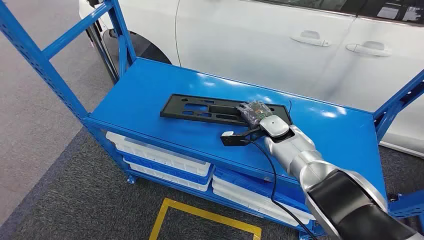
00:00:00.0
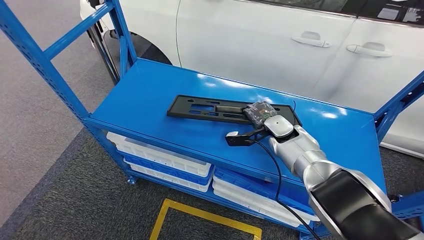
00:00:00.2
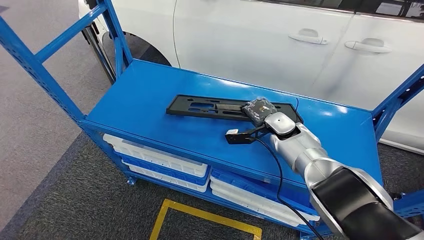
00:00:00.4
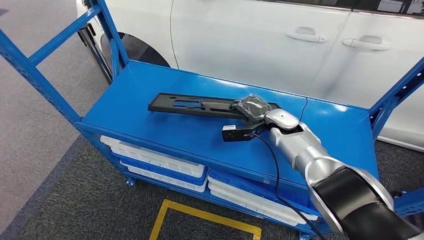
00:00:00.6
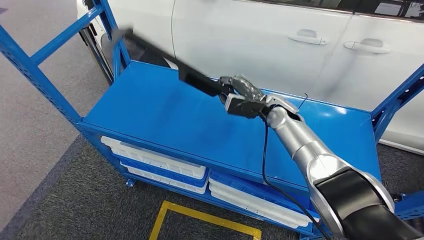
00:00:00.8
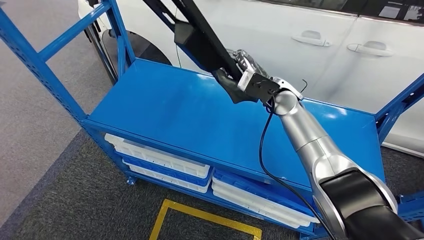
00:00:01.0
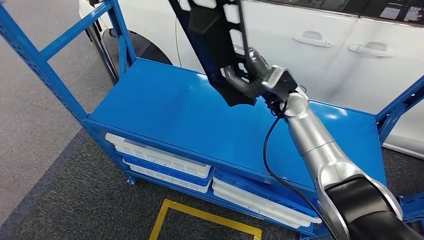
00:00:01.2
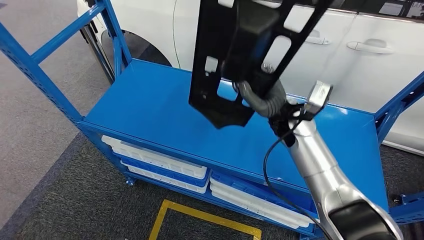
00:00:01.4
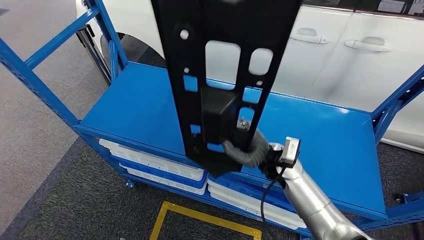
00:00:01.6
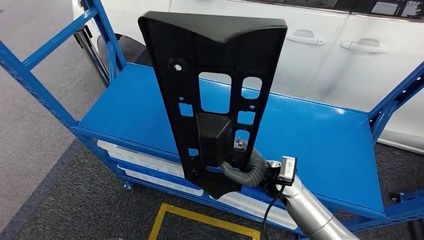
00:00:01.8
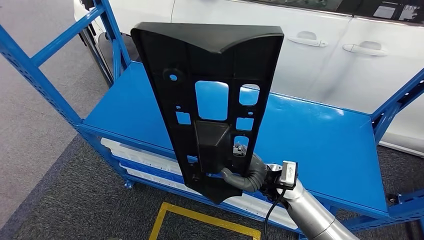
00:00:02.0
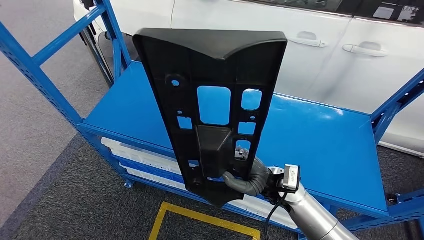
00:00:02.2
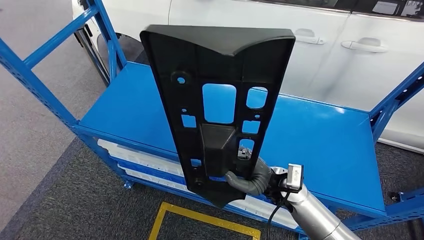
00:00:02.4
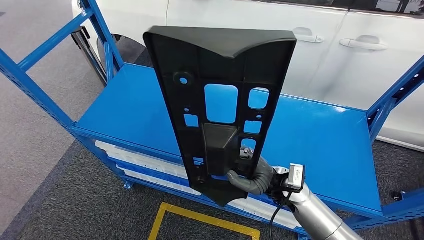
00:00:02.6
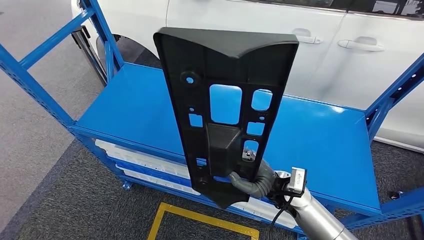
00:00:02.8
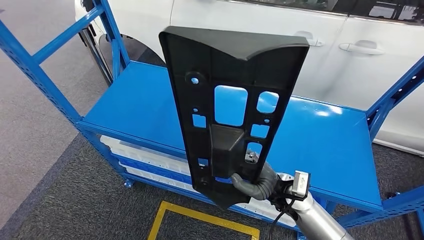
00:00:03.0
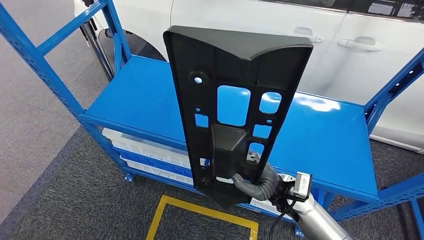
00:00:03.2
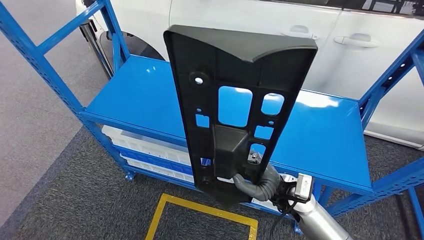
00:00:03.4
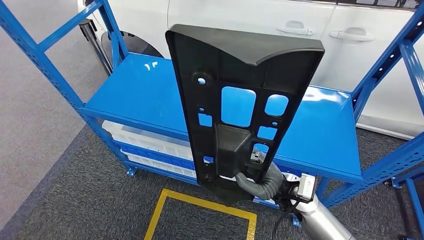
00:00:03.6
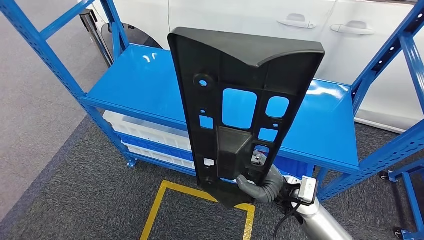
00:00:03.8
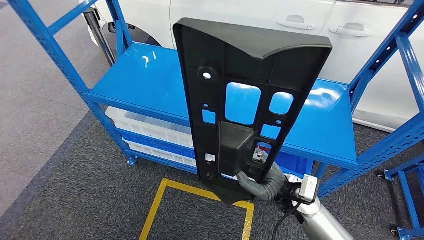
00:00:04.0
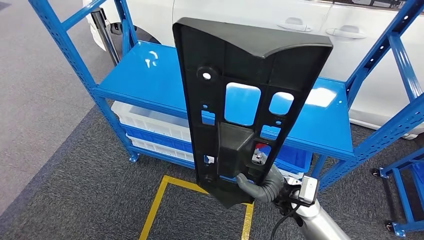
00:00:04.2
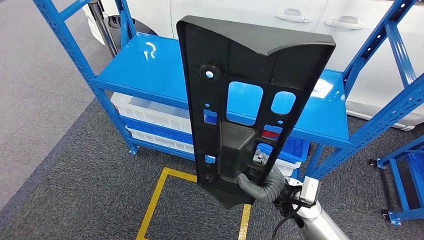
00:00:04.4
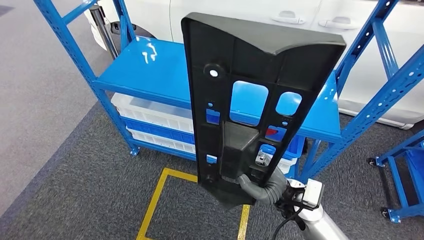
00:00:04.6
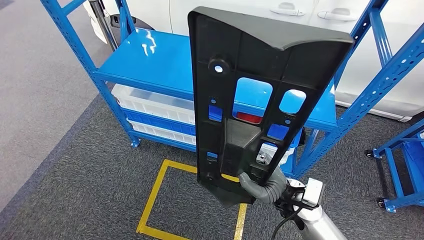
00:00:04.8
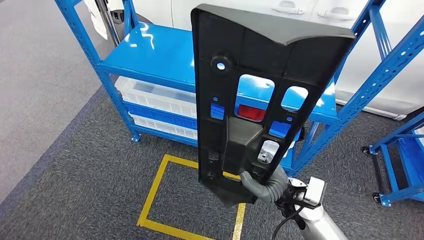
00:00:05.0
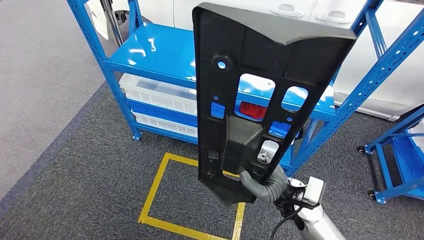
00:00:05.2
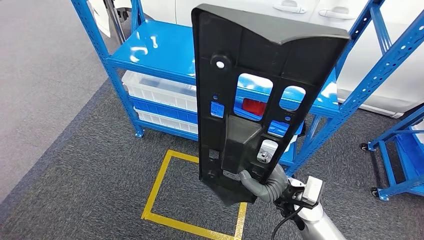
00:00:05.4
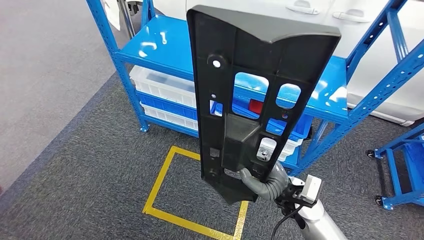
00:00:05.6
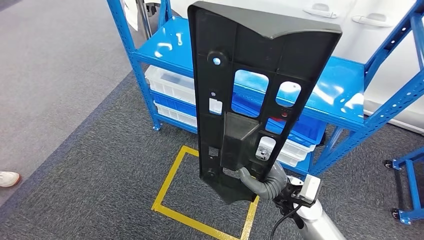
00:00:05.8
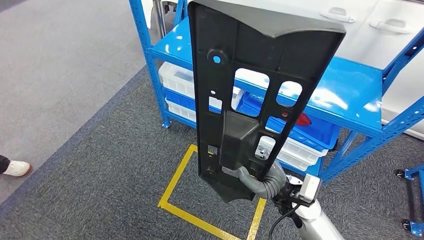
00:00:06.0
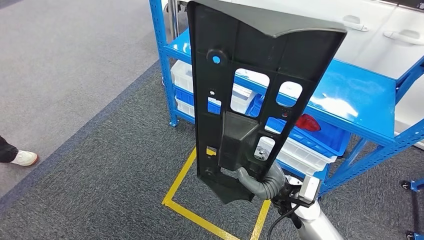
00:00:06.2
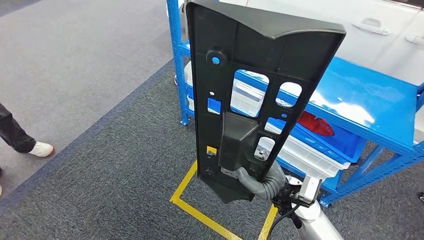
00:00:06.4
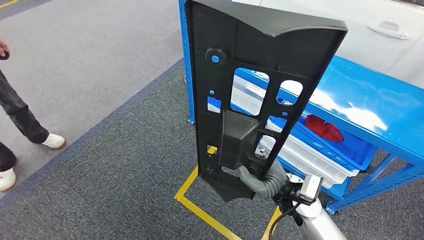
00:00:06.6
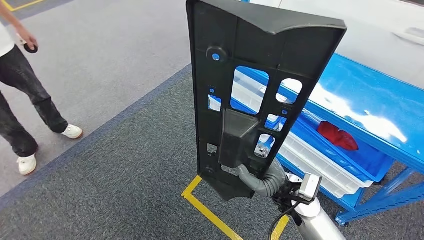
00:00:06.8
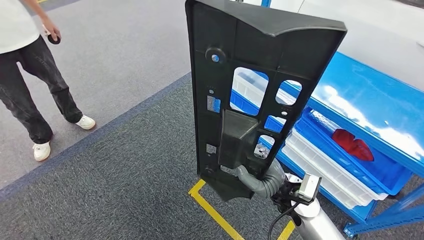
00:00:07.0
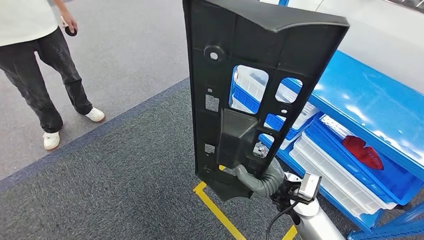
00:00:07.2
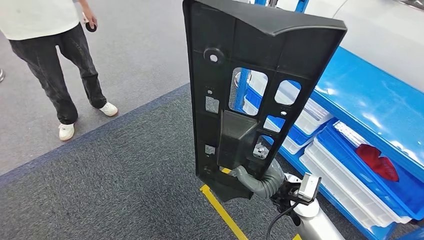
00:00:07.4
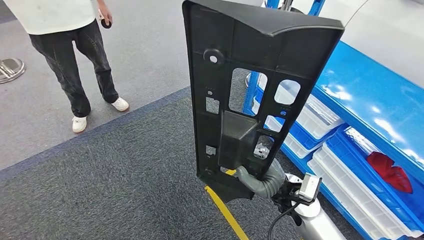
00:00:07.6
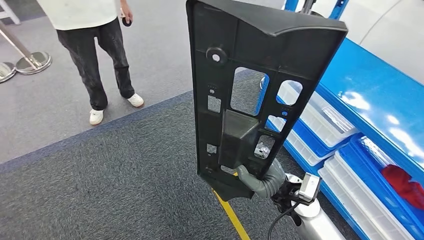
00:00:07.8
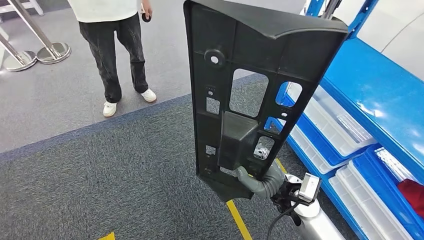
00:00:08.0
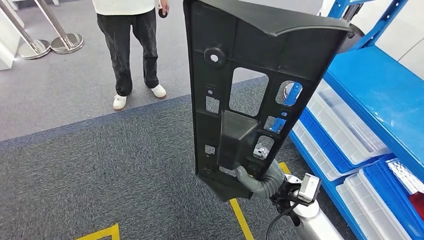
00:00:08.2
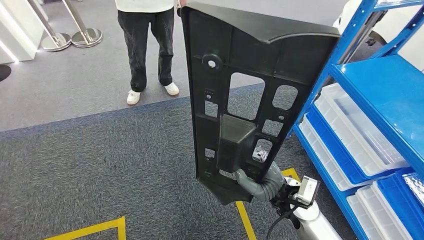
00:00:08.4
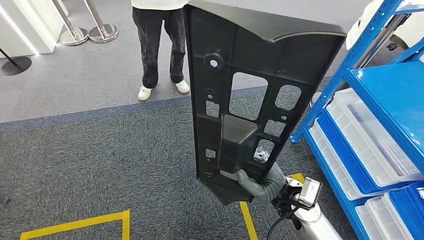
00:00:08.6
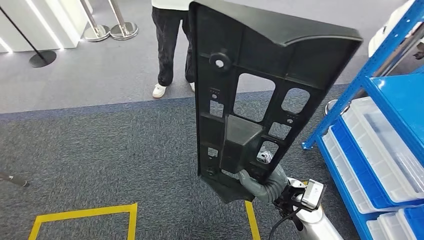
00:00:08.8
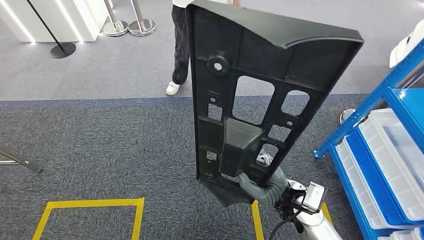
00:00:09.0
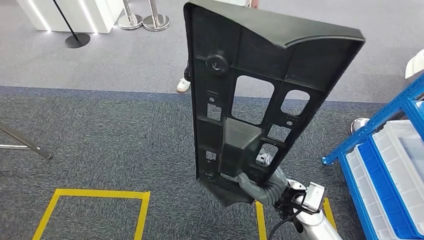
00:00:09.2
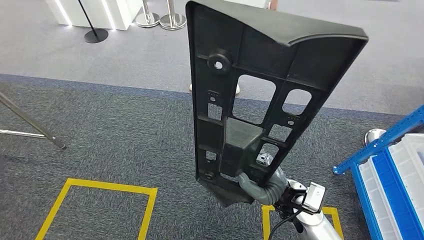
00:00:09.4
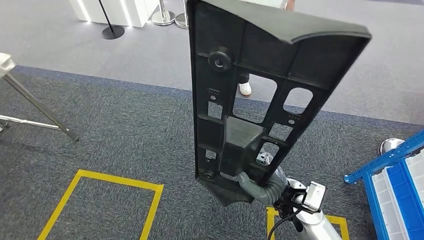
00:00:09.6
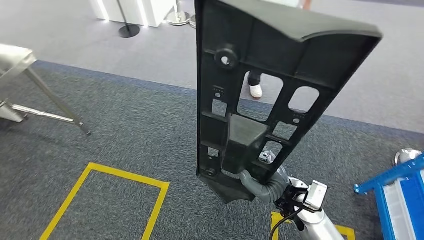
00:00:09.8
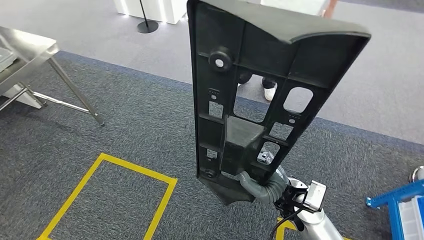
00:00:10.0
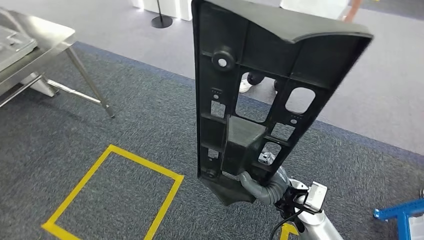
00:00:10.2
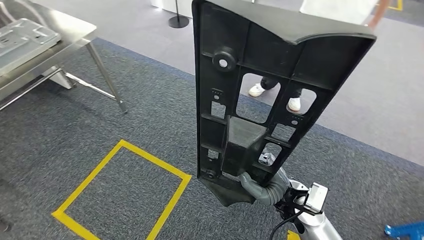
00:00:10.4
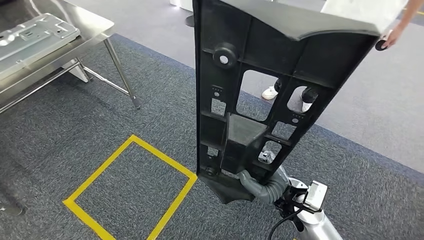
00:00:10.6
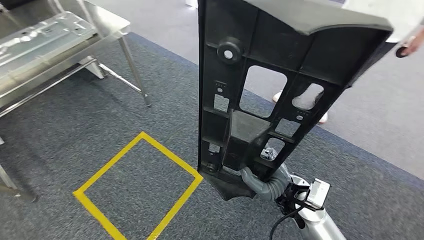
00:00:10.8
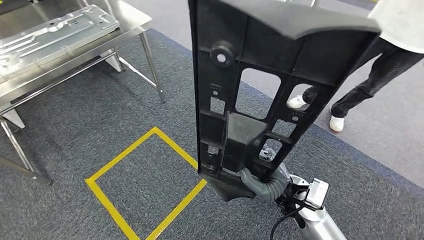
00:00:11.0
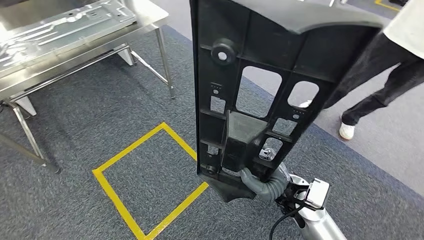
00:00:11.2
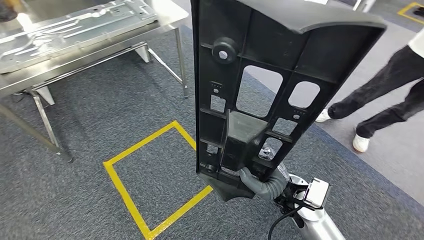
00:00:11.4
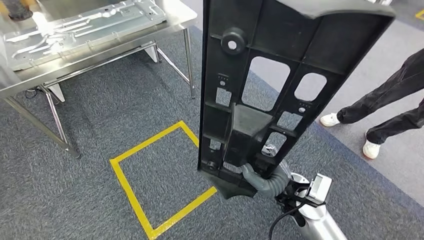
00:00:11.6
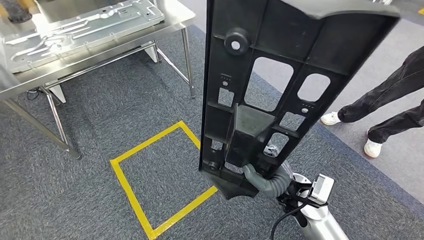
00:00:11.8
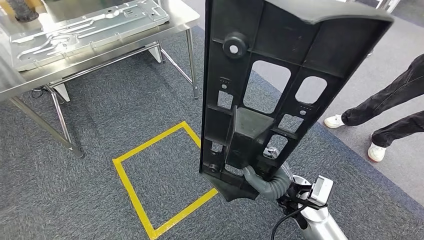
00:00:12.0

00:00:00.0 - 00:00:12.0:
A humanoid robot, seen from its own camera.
Step, 00:00:00.0 - 00:00:03.2: Pick up the large material from the shelf.

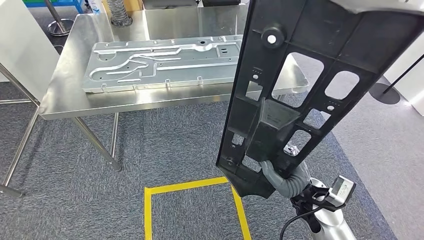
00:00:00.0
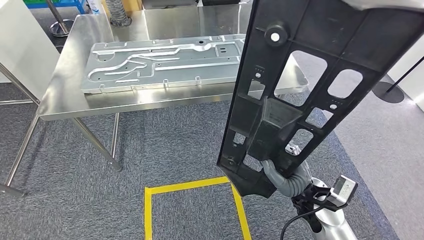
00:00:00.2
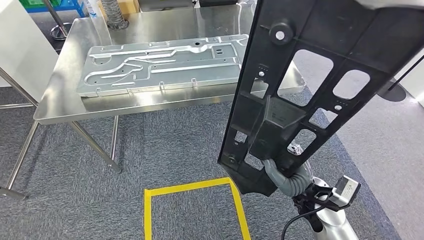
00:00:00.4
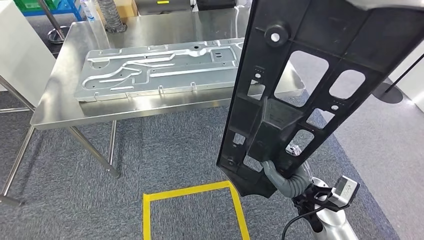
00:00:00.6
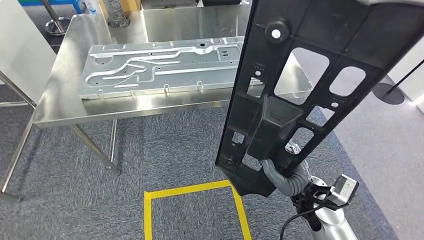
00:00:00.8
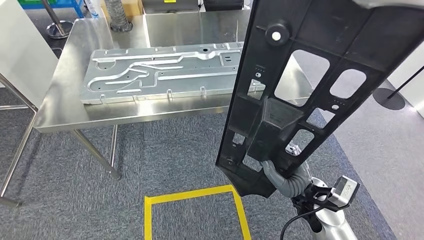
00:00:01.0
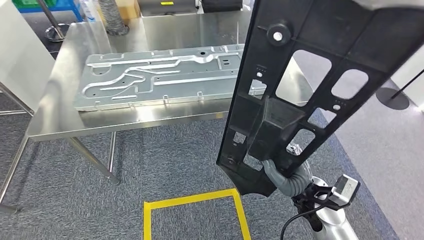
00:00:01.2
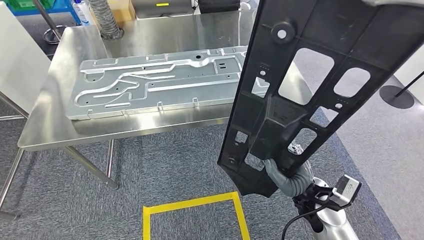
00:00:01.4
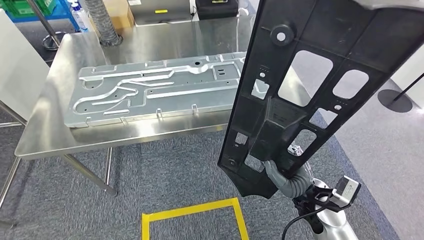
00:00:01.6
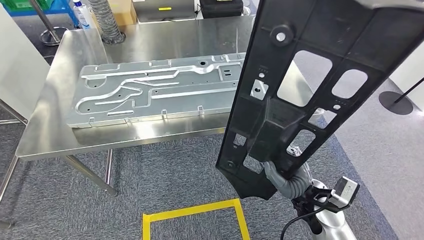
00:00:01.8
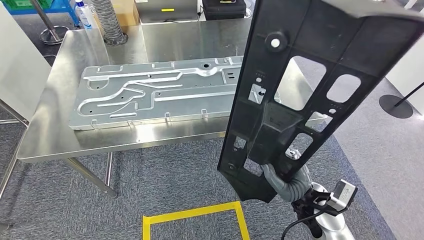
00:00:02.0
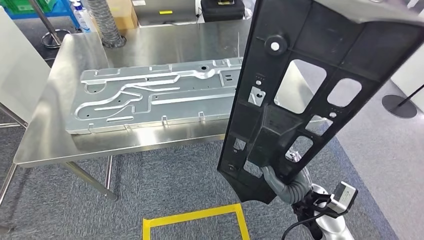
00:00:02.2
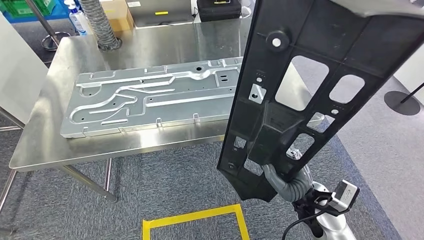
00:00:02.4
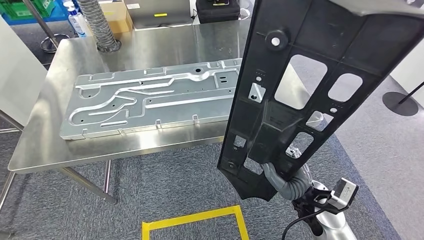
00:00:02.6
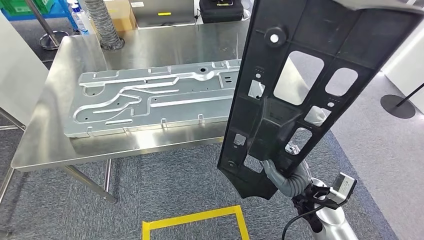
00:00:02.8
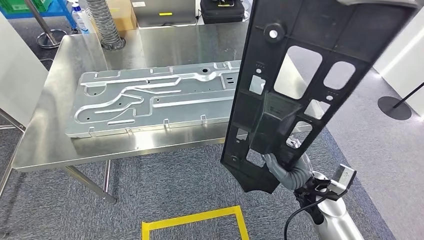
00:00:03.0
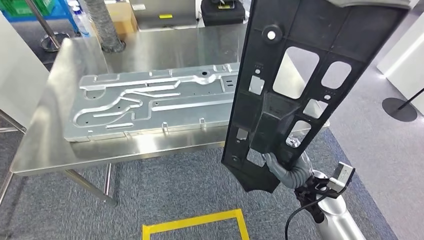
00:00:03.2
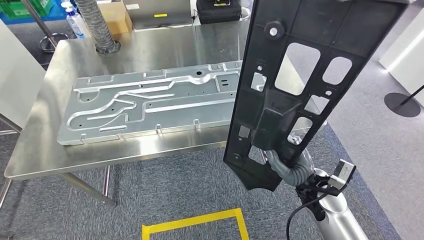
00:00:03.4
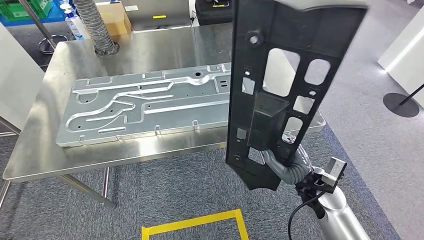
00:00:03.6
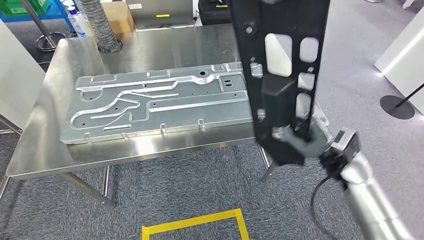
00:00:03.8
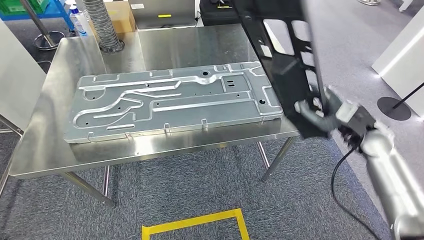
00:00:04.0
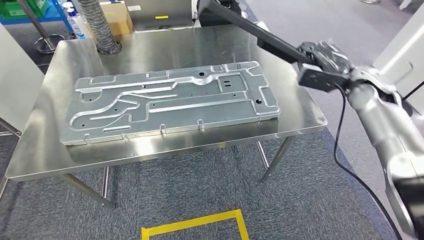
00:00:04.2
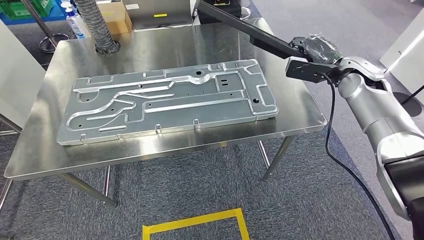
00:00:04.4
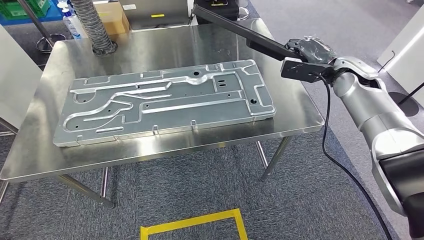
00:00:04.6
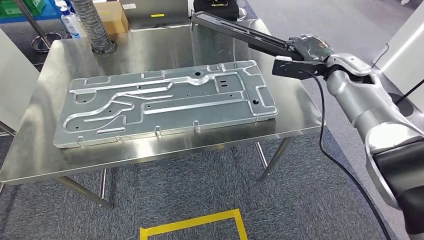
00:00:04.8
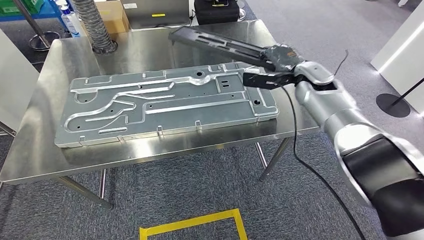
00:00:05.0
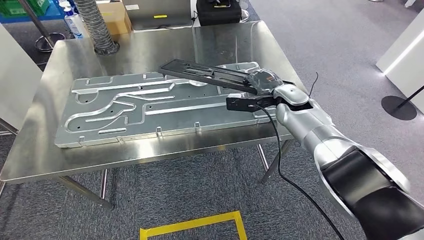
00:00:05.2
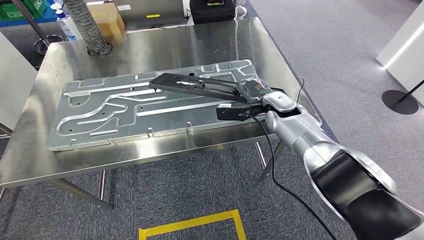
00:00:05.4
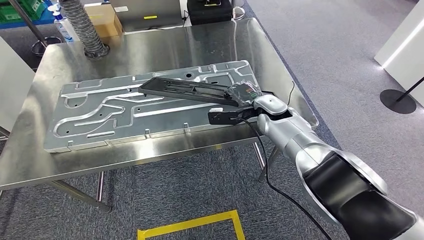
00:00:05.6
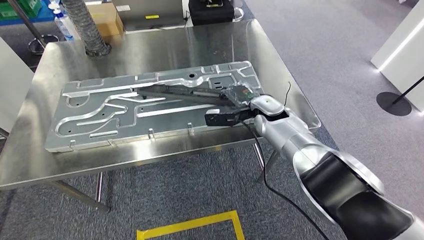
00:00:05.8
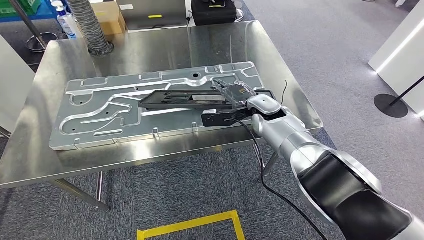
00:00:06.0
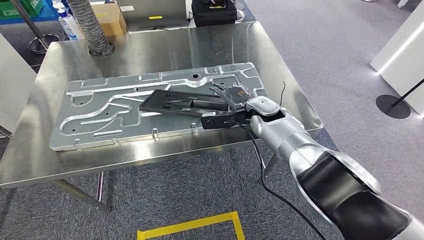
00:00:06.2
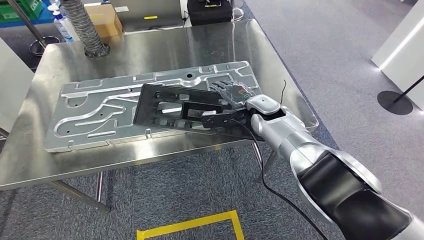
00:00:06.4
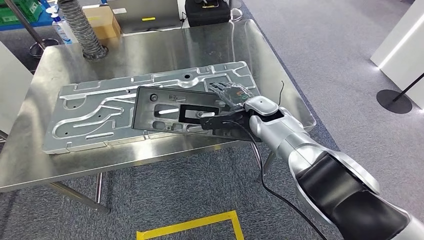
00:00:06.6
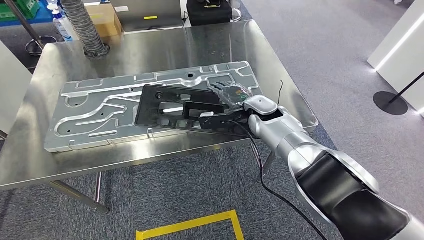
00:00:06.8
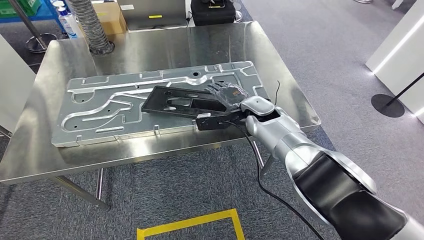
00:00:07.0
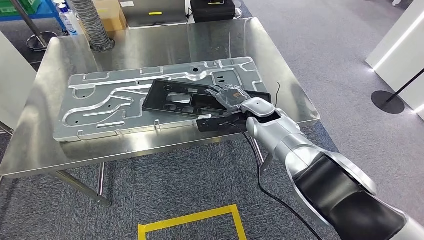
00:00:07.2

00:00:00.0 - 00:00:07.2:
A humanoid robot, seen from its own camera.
Step, 00:00:00.0 - 00:00:03.2: Move the large material to the workbench.
